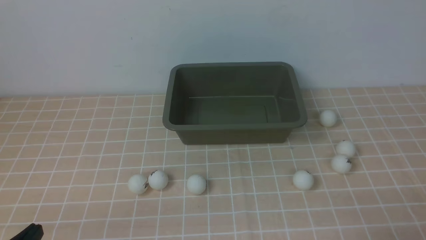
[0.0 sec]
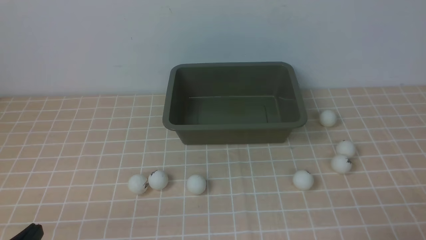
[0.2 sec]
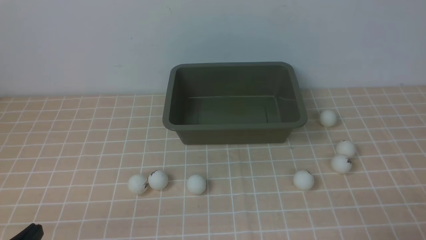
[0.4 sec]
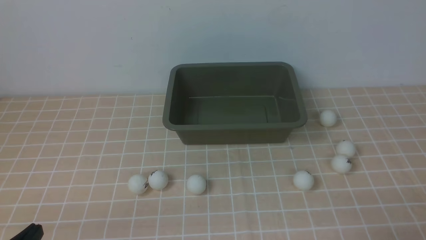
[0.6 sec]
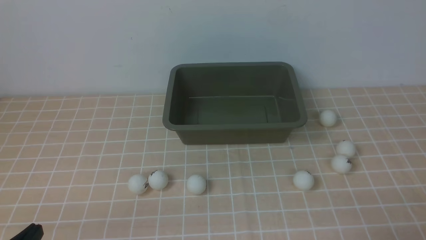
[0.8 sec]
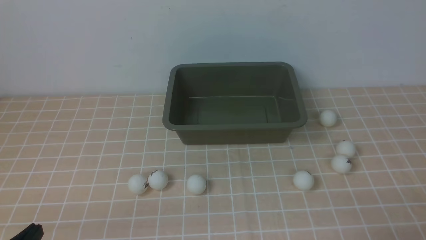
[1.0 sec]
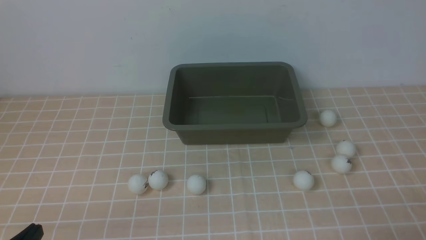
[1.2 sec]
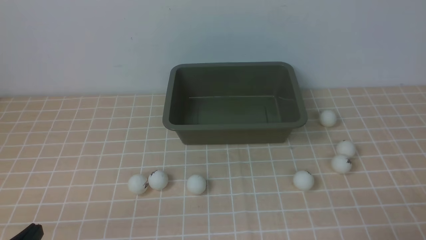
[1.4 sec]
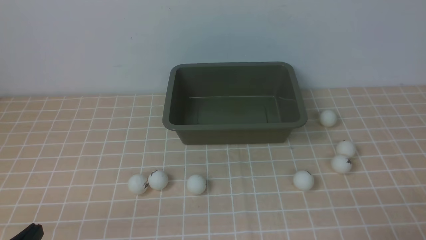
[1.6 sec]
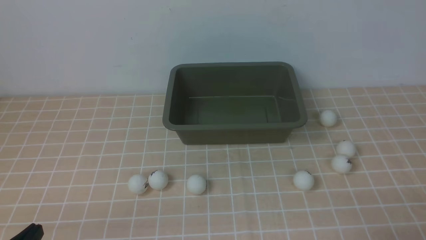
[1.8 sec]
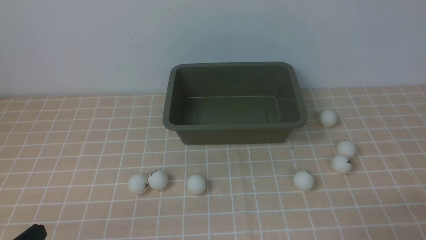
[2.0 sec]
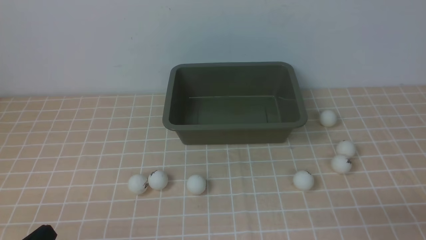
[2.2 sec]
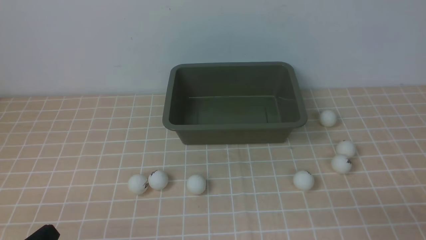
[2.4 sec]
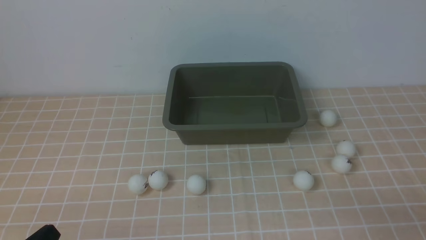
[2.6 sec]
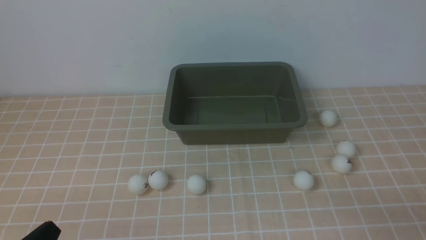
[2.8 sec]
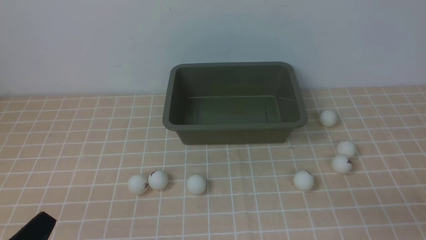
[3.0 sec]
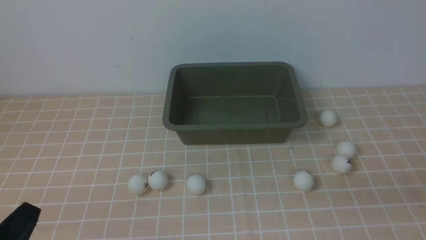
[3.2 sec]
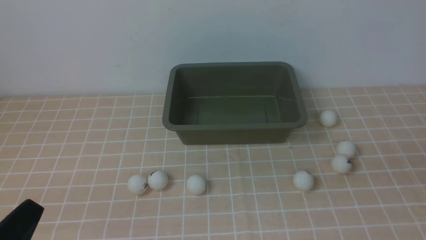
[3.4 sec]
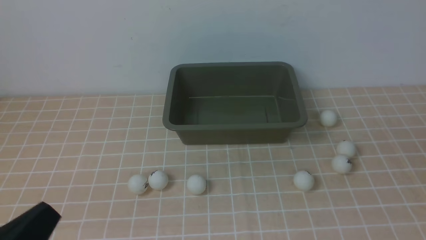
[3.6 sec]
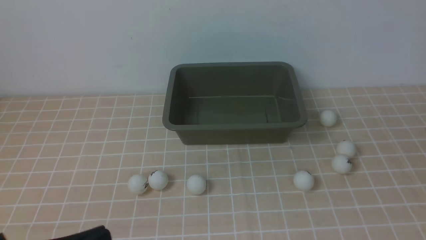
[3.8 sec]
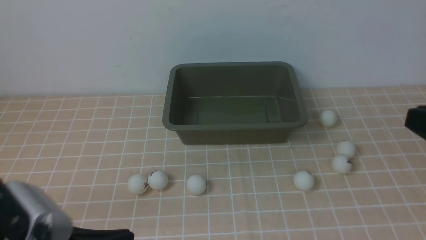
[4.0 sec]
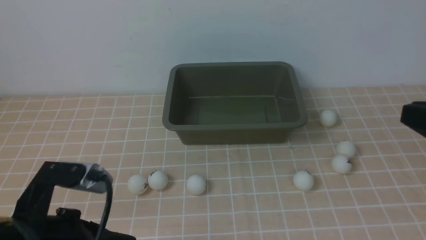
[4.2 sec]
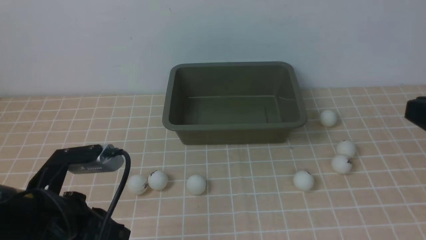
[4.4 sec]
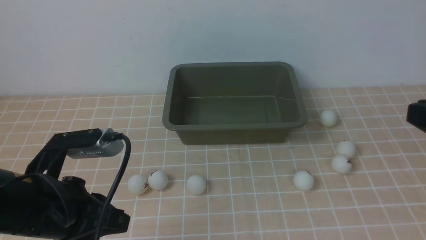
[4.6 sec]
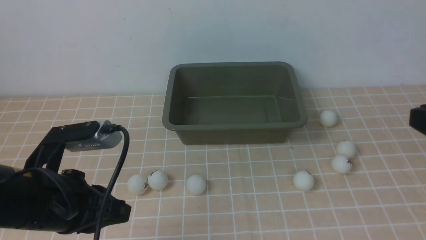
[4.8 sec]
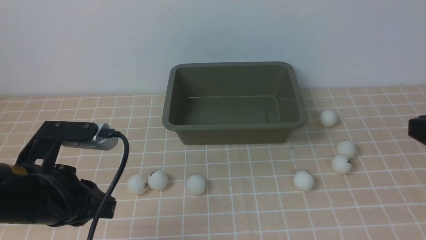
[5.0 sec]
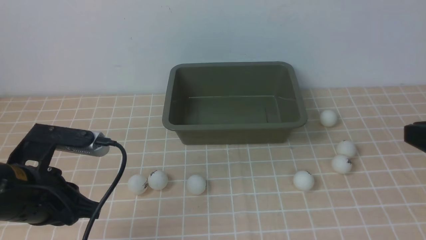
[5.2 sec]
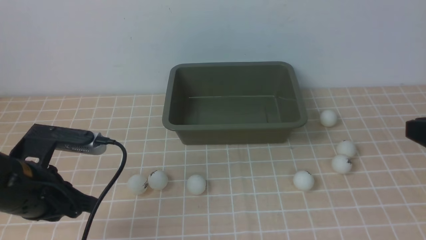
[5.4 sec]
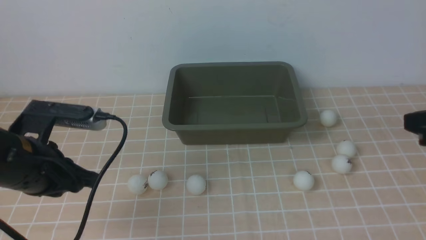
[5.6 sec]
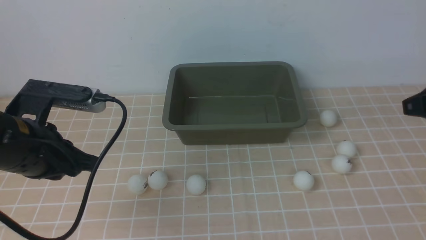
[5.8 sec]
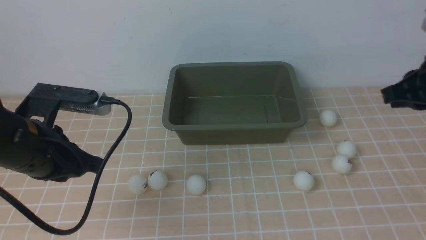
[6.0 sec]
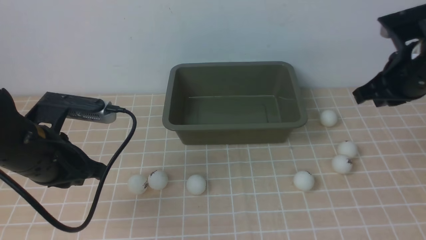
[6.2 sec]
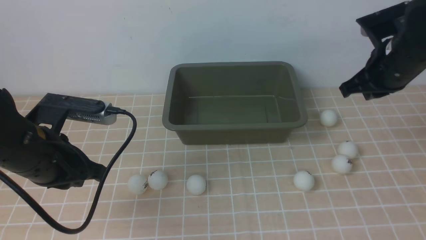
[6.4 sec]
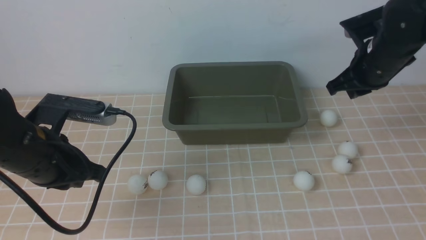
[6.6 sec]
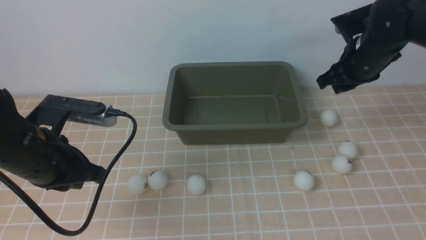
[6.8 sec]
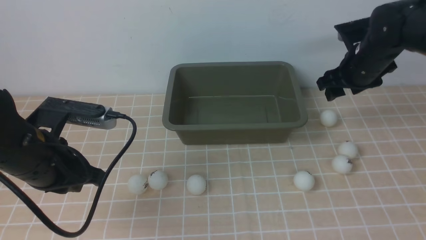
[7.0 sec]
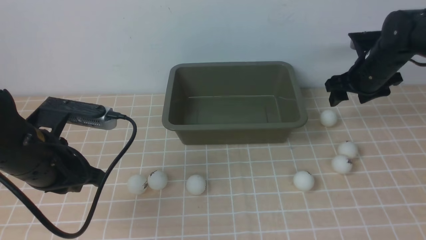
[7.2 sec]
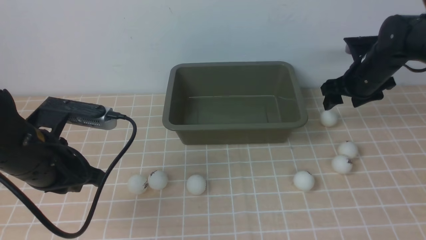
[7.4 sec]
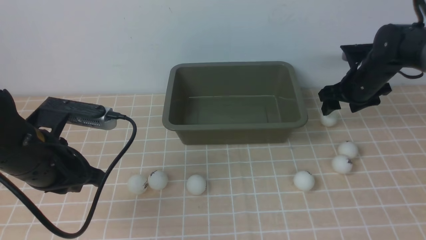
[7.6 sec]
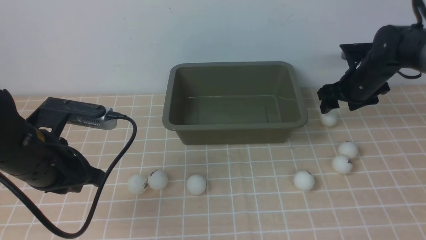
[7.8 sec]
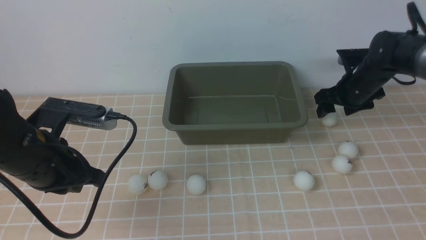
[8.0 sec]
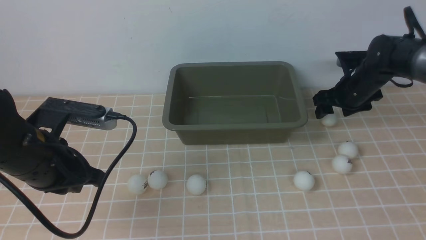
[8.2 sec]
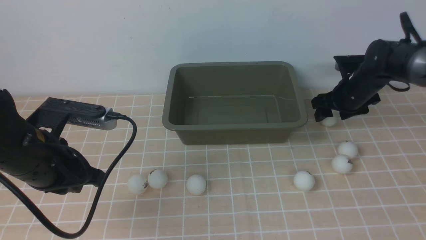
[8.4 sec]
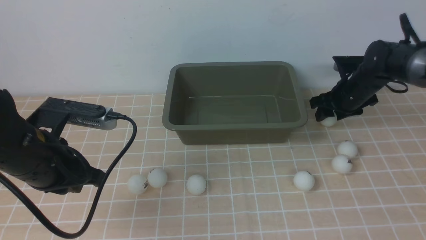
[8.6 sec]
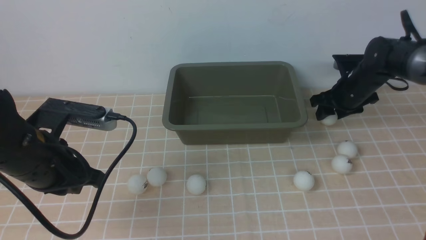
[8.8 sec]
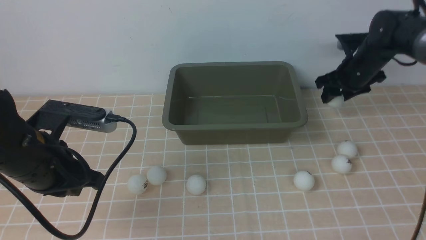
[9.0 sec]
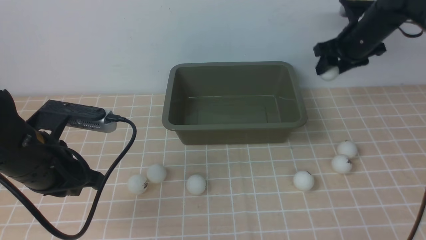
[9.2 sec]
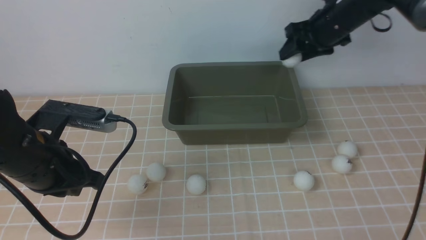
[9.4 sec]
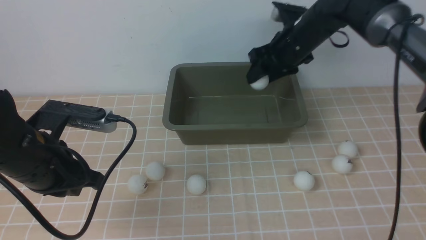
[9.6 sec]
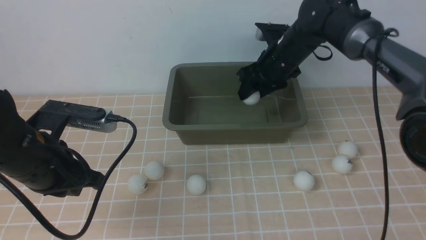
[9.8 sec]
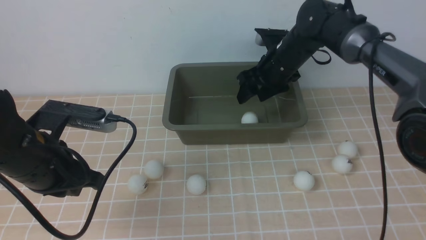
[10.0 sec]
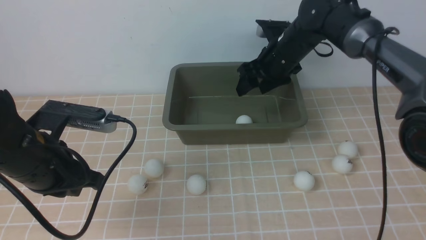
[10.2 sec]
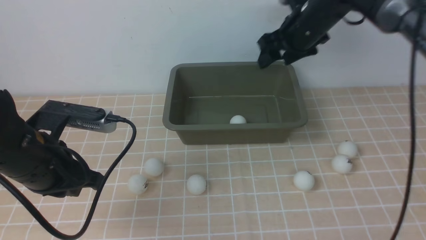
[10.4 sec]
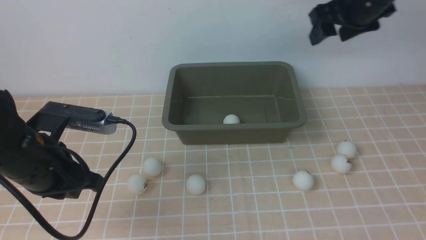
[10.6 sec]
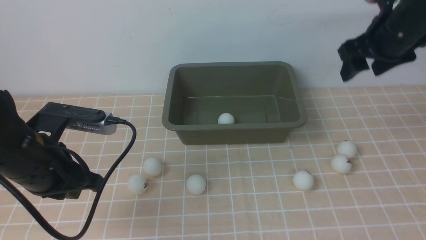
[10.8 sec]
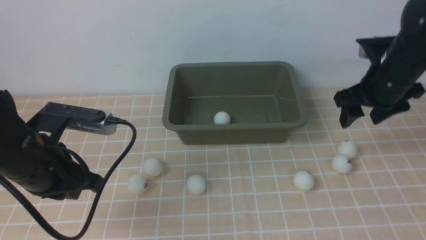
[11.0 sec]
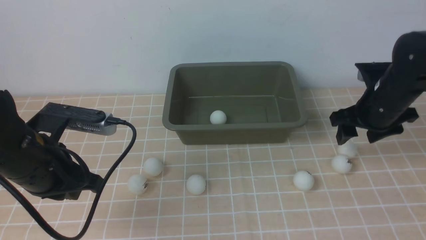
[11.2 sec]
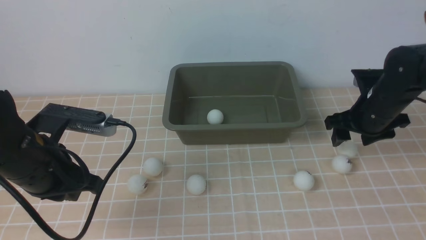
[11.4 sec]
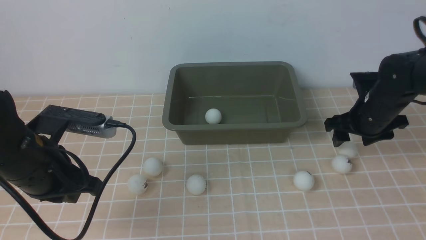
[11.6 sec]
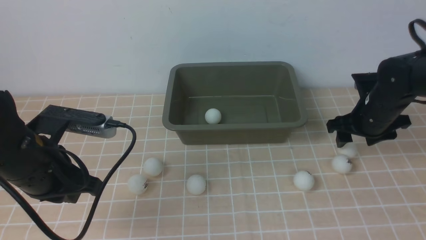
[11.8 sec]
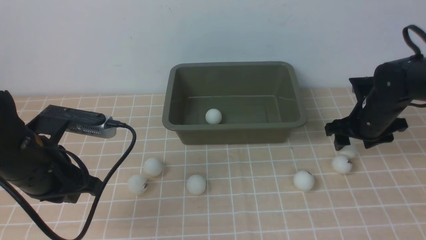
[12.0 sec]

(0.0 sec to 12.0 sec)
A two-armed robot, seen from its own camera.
Step, 0.0 sec - 9.0 sec: use the right arm to clamp the table tennis ball closest to it.
Step, 9.2 sec - 10.2 sec: use the right arm to put the table tennis ball into the box.
0.0 sec - 1.6 sec: Both grippers stay put.
3.0 sec - 4.4 sec: The left gripper goes about 15 cm forward, upward and to the right.
4.4 sec - 6.0 sec: The right gripper travels forward by approximately 15 cm; the left gripper shifts some 10 cm forward.
6.0 sec - 7.6 sec: The right gripper travels forward and downward by some 20 cm, and opens.
7.6 sec - 9.0 sec: The grippers stay close to where they were, moving slightly.
9.0 sec - 10.4 sec: The right gripper moves upward and to the left, some 15 cm.
10.4 sec - 12.0 sec: The right gripper is displaced downward, to the right and backward by roughly 20 cm.

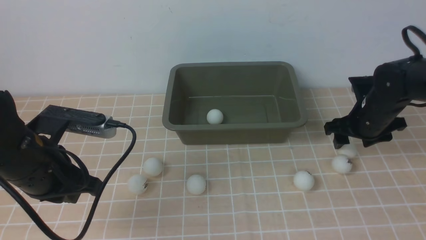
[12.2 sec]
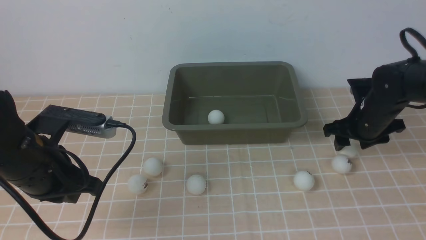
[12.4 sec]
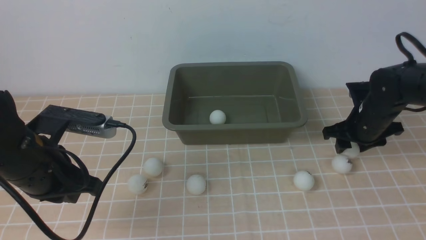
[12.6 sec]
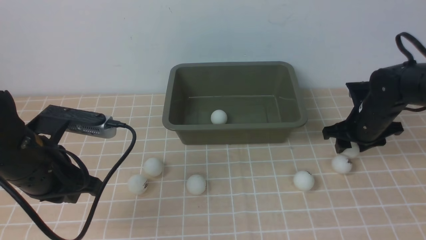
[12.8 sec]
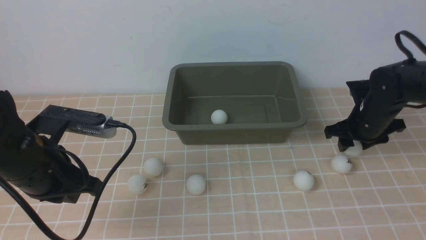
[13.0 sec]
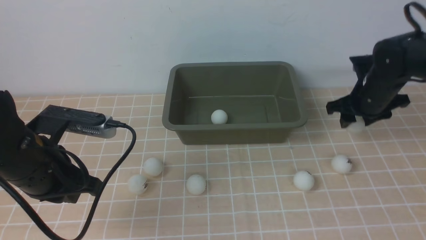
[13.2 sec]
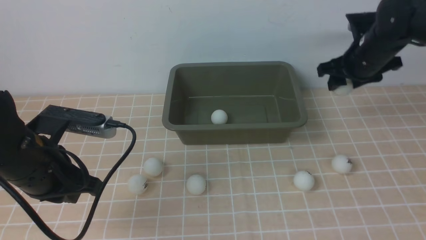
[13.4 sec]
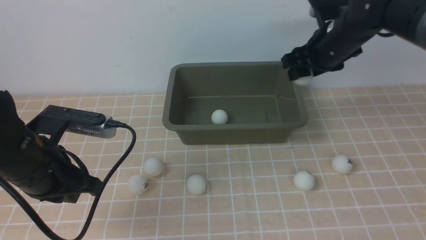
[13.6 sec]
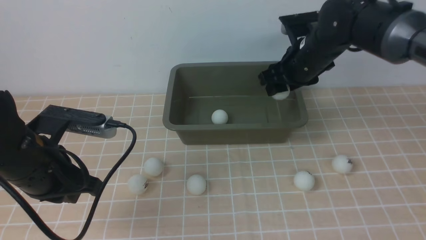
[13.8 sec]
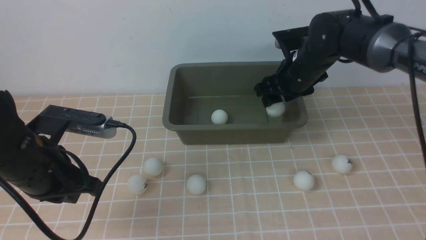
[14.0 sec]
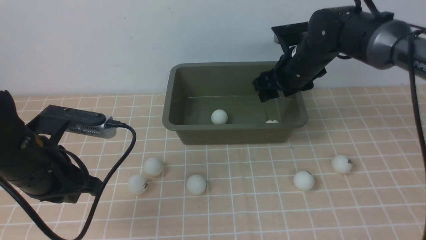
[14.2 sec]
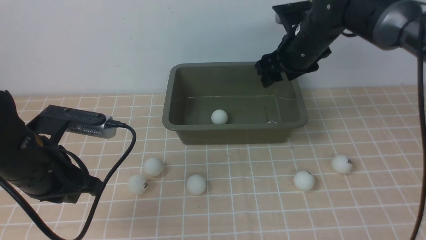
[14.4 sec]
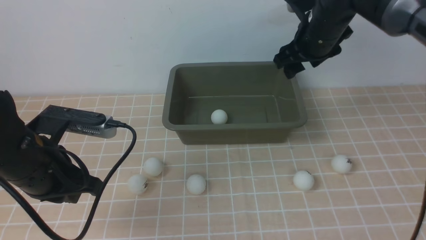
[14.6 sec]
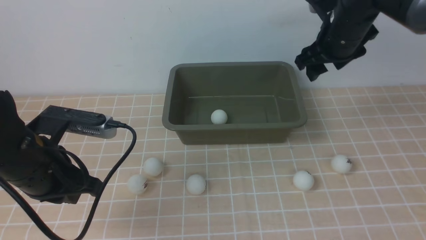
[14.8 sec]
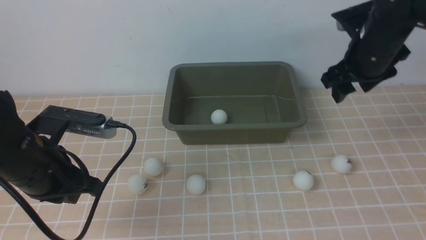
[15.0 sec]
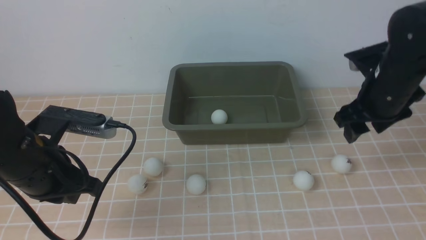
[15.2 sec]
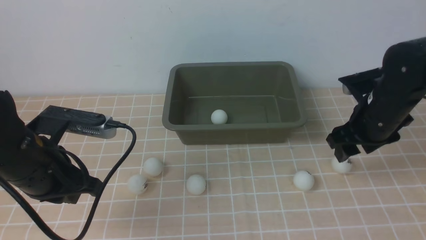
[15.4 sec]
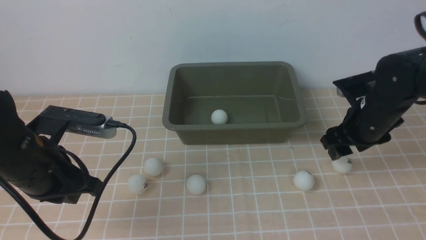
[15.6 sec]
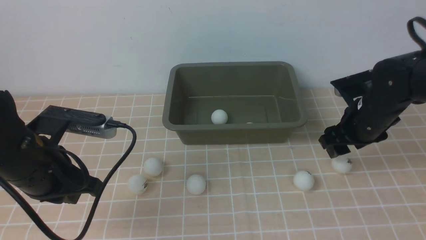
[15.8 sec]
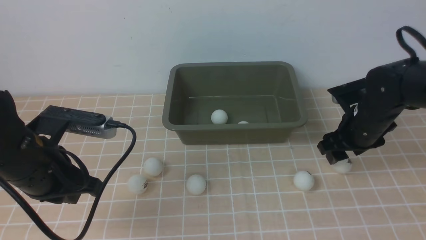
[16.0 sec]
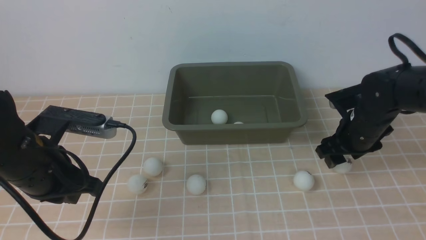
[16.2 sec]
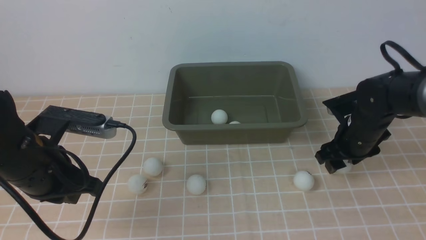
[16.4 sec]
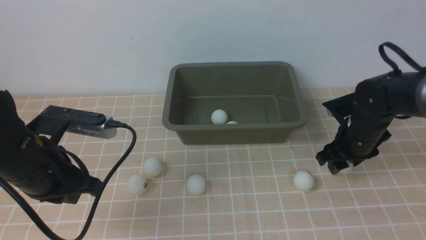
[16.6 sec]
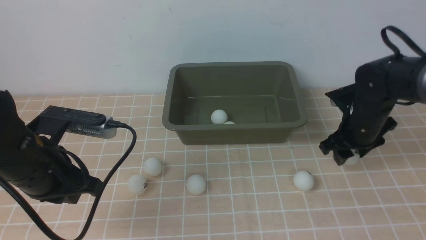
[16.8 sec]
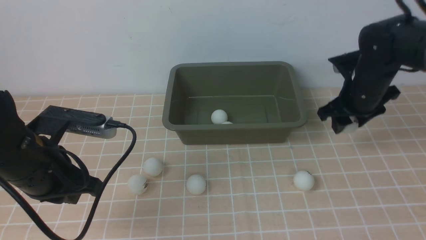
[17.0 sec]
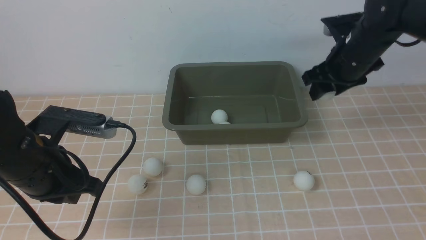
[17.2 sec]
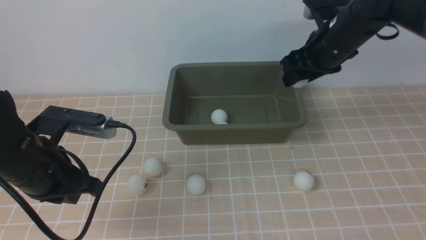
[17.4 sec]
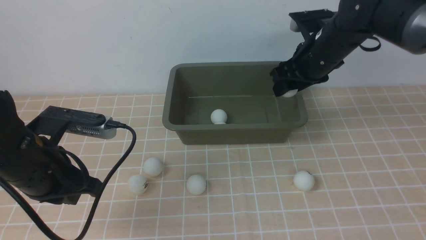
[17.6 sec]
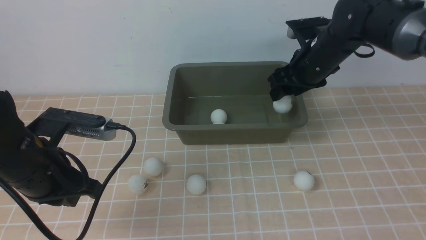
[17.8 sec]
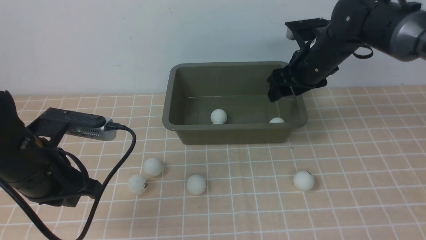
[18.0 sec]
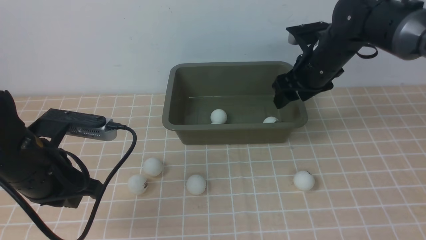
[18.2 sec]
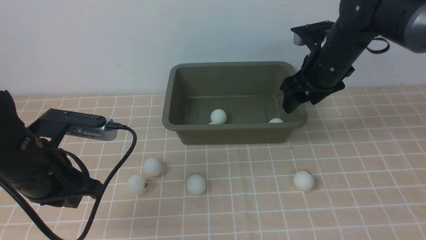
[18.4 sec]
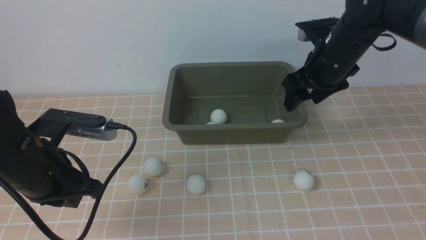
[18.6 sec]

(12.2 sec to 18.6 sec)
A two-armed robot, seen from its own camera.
Step, 13.4 sec - 14.2 sec: use the right arm to put the table tennis ball into the box.
Step, 14.6 sec - 16.8 sec: use the right arm to clamp the table tennis ball closest to it.
Step, 17.0 sec - 18.0 sec: use the right arm to put the table tennis ball into the box.
12.2 sec - 13.8 sec: The right gripper is displaced to the left and upward by some 15 cm.
13.8 sec - 15.4 sec: The right gripper moves backward and to the right, about 10 cm.
15.4 sec - 17.0 sec: The right gripper moves forward, approximately 5 cm.
17.0 sec - 18.6 sec: The right gripper shifts by about 5 cm.
